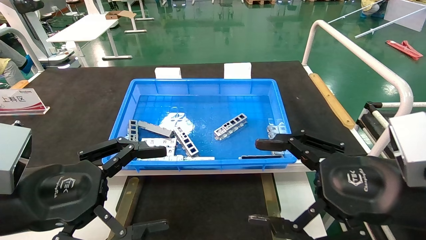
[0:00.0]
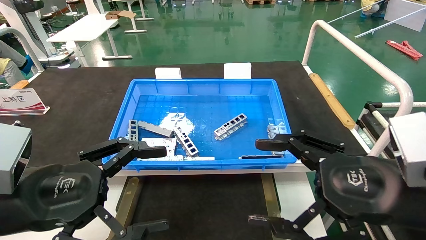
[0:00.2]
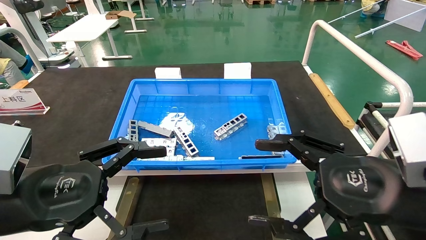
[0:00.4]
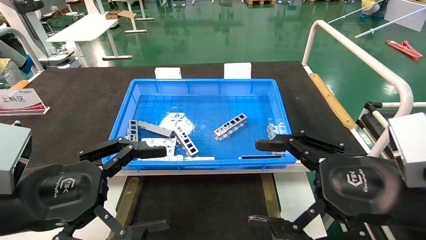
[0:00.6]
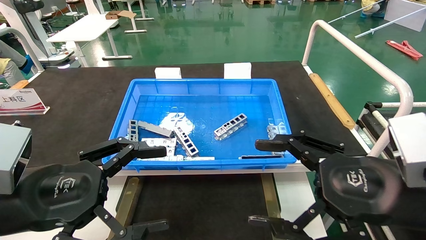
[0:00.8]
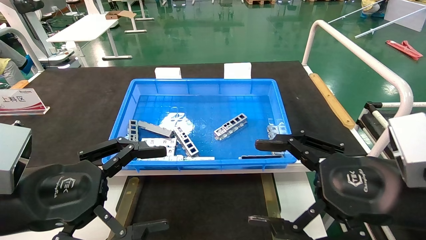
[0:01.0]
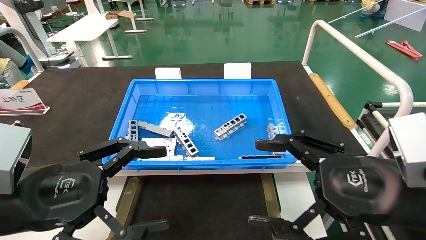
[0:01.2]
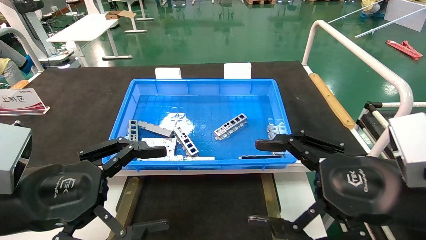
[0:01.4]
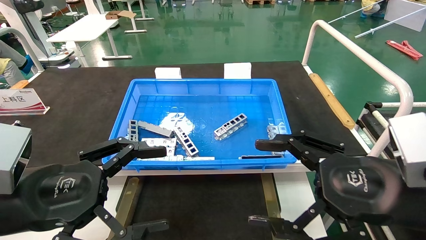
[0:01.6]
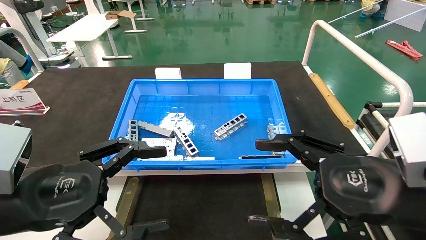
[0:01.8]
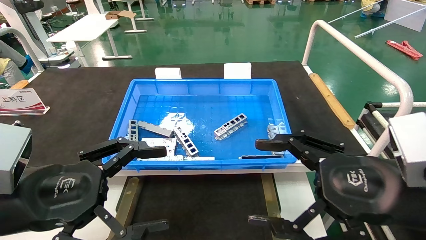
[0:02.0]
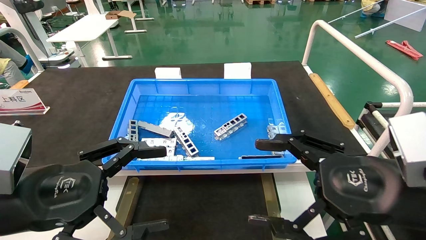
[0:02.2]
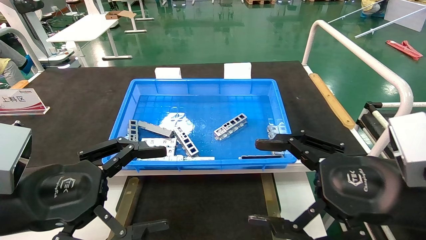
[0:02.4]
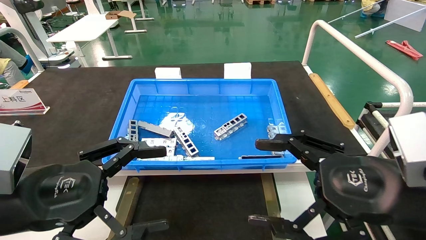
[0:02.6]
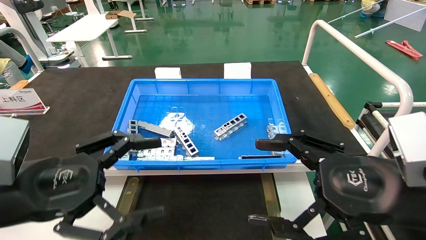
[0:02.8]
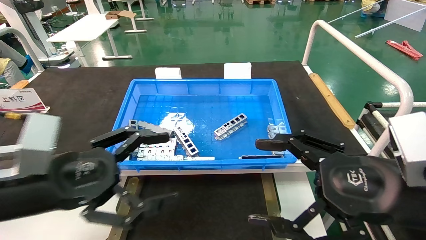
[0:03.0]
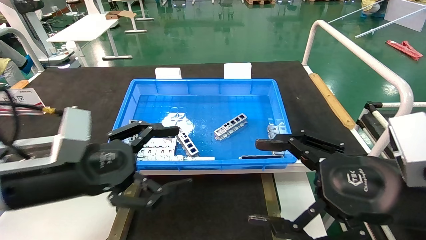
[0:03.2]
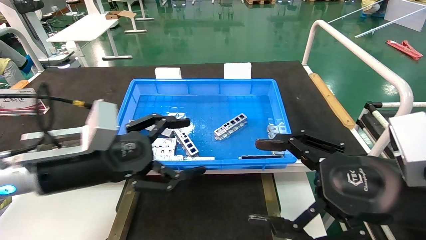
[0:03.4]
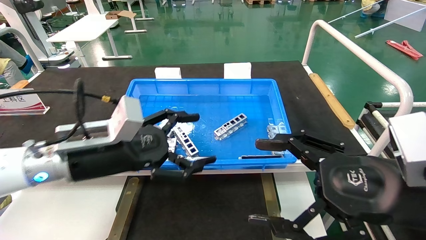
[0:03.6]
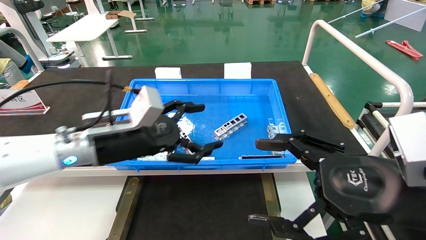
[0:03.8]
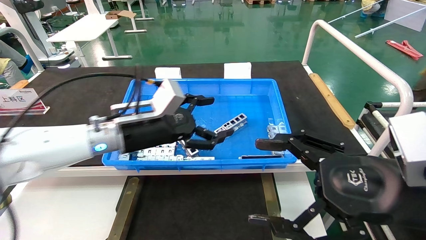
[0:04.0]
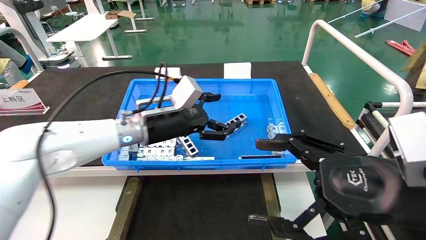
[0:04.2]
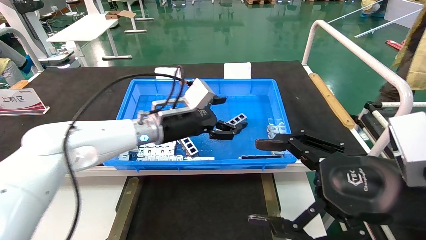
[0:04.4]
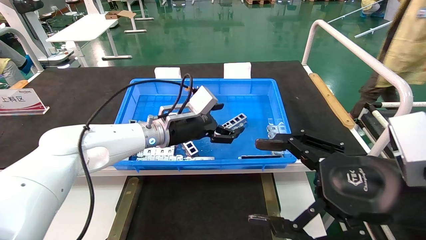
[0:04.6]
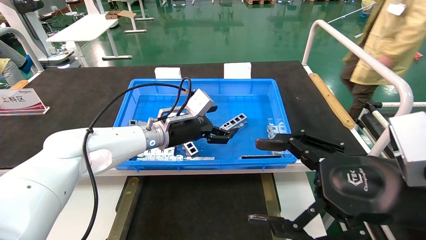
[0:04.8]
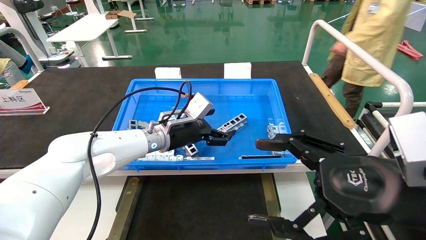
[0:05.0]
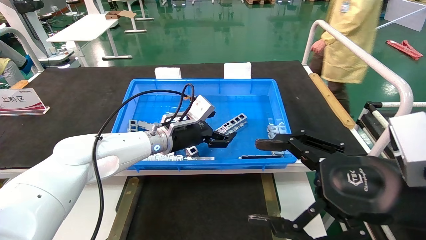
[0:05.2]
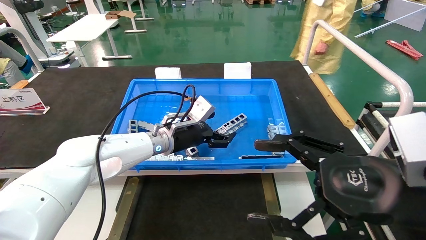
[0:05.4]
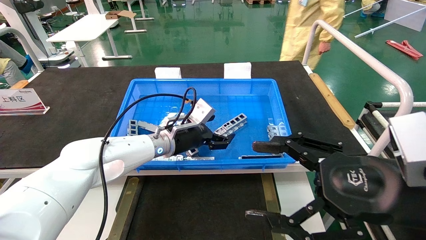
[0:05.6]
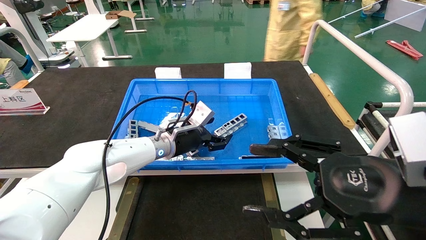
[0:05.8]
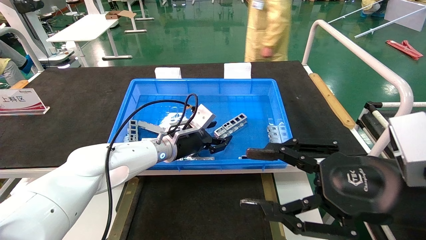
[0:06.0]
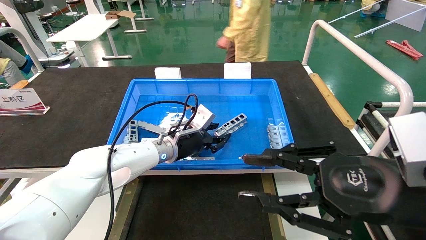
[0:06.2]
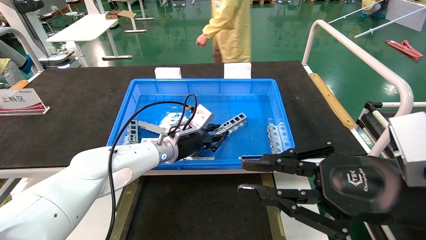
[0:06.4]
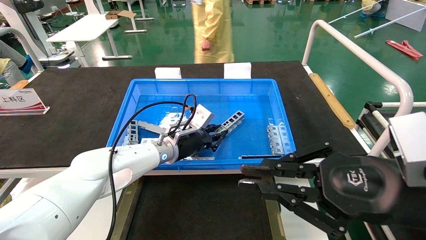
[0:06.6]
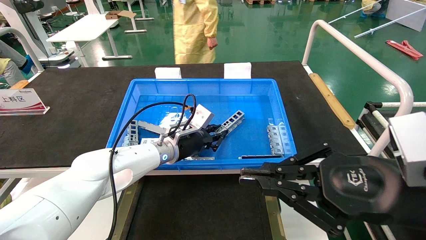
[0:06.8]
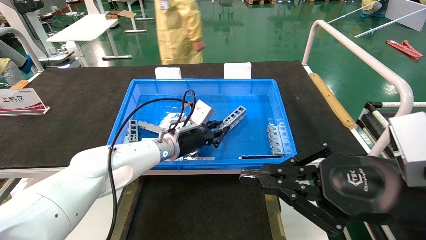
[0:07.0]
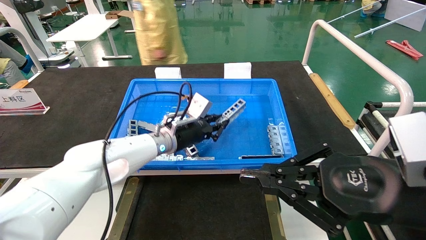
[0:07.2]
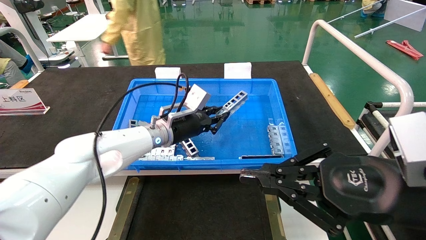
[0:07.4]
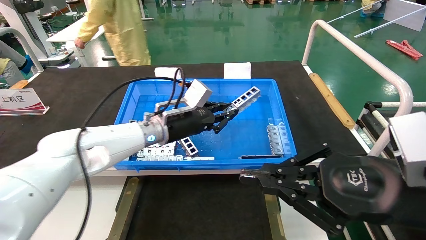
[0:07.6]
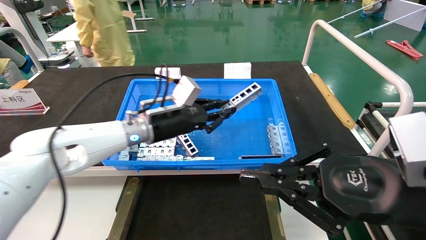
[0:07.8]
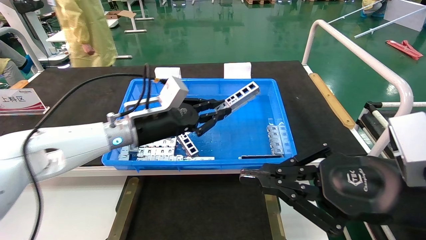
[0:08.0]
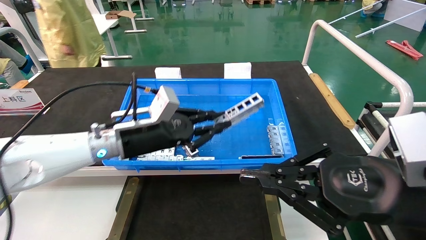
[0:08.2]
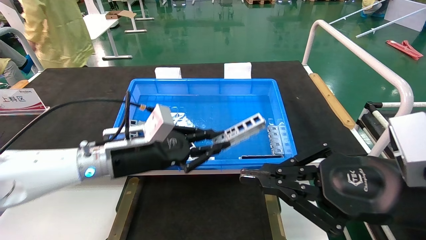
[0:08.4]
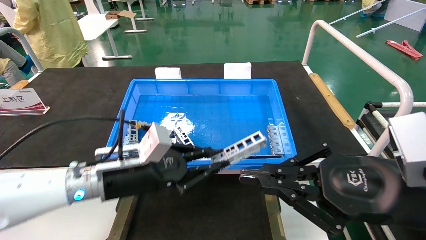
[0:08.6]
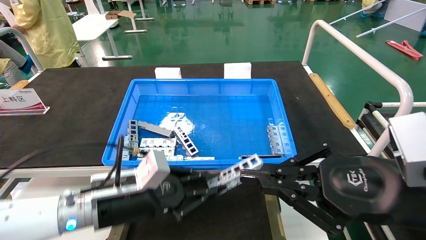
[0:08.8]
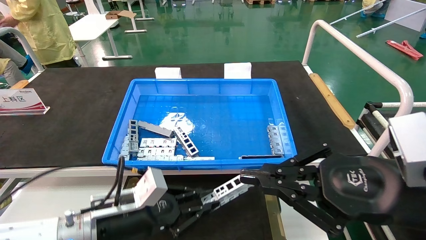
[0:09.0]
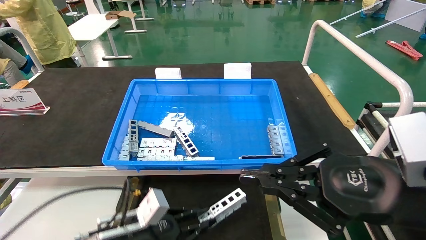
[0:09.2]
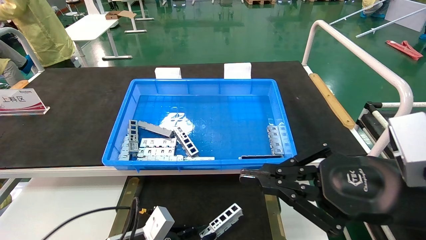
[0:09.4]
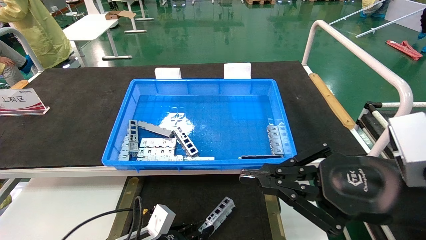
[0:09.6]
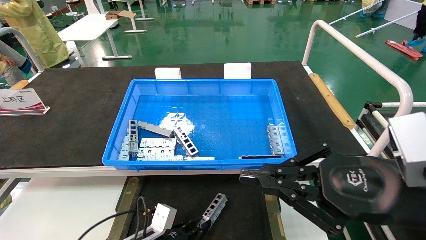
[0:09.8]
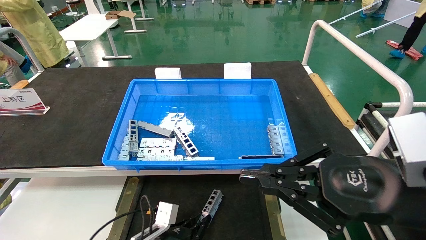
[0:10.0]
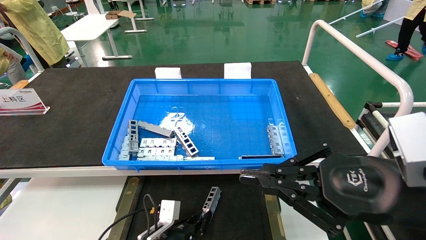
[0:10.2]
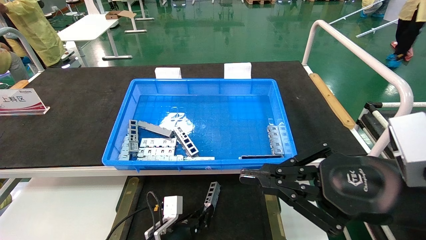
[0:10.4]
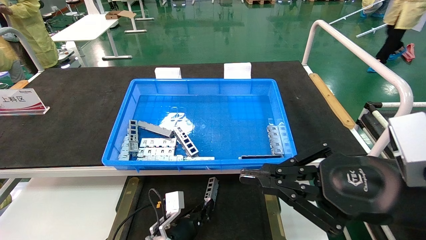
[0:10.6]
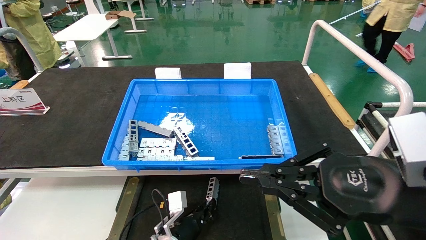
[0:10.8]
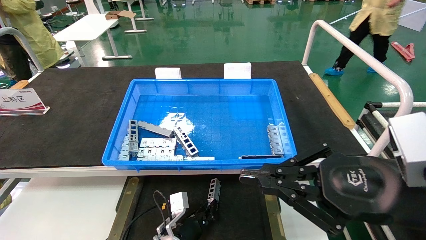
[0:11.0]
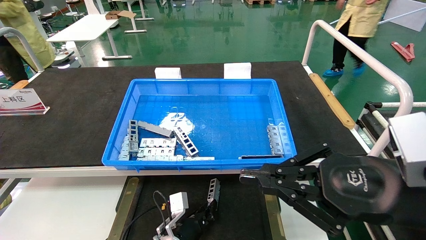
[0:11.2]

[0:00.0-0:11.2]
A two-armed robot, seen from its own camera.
Task of the whole recording: Grasp the part with one hand and place it on the black container.
Step, 0:03.0 to 0:06.6: Pick up the front USB bracket from the feeding area.
0:00.0 to 0:01.6: Neither gripper changes place.
0:01.6 to 0:03.2: The left gripper goes roughly 5 cm forward.
0:03.2 to 0:04.8: The left gripper is displaced forward and to the right by about 25 cm.
0:04.8 to 0:06.4: The left gripper closes. The right gripper closes its fingers.
0:06.4 to 0:08.0: The left gripper heads backward, upward and to the left, covering approximately 10 cm.
0:08.0 to 0:09.6: The left gripper moves downward and backward, about 25 cm.
0:09.6 to 0:11.2: The left gripper shifts some 15 cm forward, to the right and downward.

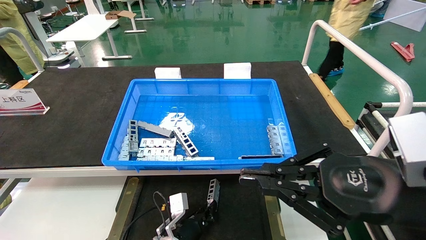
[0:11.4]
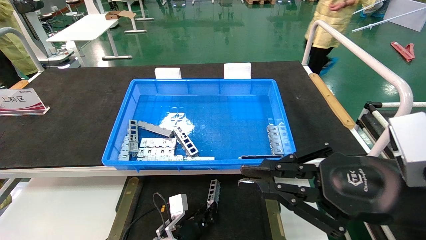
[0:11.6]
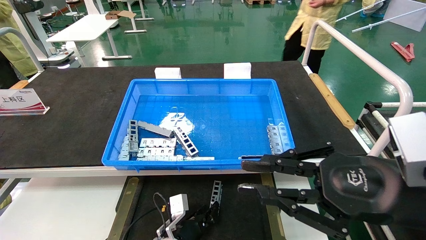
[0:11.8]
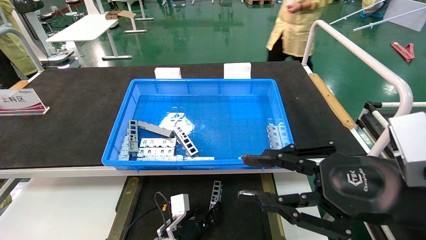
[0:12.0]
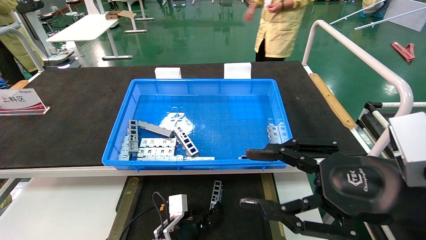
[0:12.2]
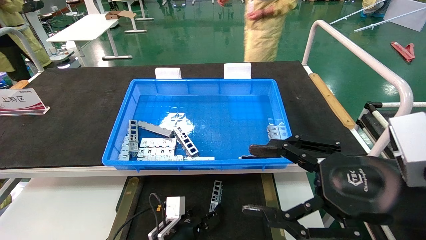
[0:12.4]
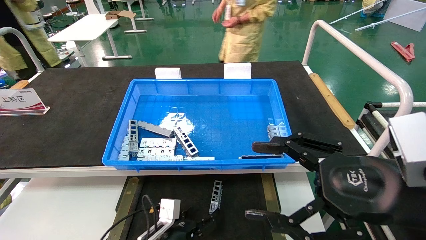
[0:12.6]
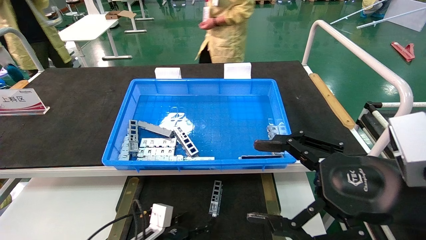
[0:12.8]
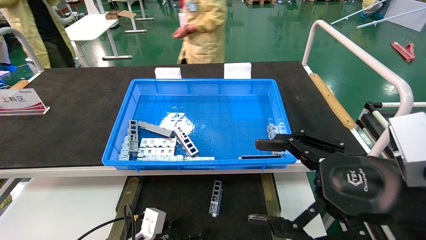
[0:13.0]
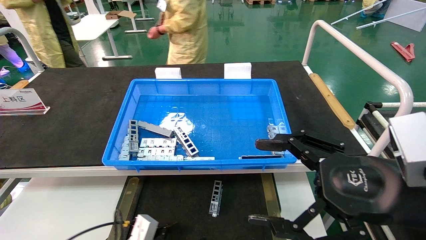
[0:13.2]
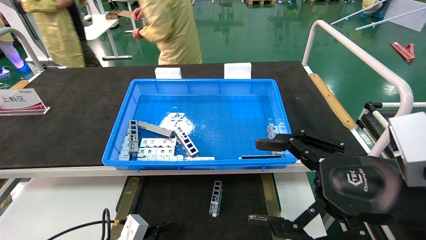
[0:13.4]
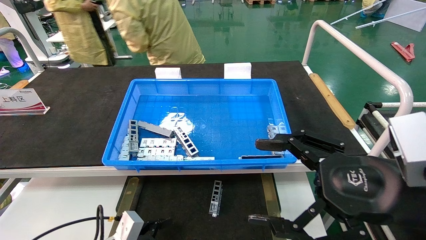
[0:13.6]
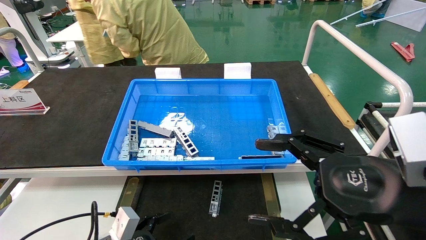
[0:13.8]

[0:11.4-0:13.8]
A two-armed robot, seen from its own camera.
Task of the whole recording: Grasp the part with one hand and place it on the black container.
0:11.4 to 0:12.6: The left gripper moves some 5 cm, and opens up, while the right gripper opens.
0:12.6 to 0:13.8: The left gripper shifts about 15 cm to the left, backward and upward.
